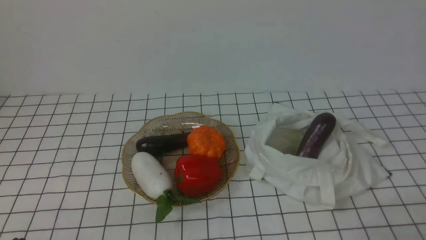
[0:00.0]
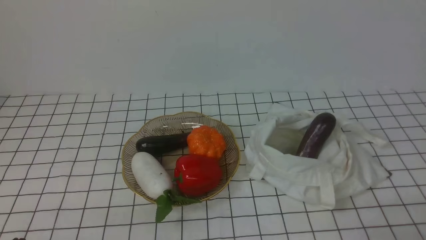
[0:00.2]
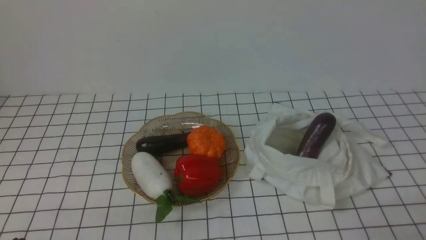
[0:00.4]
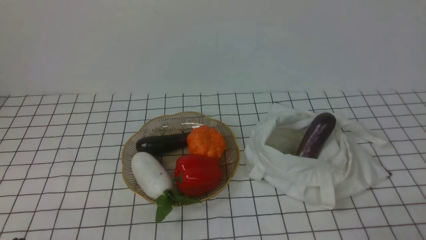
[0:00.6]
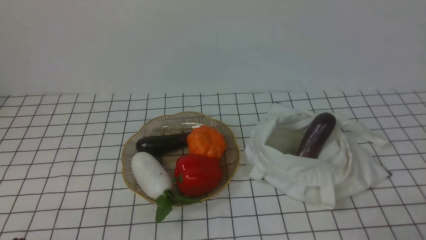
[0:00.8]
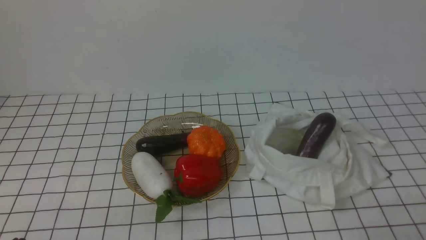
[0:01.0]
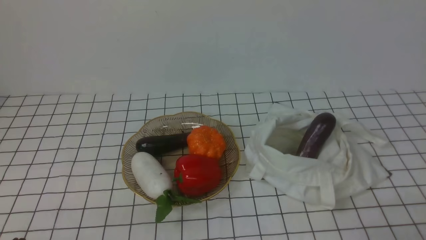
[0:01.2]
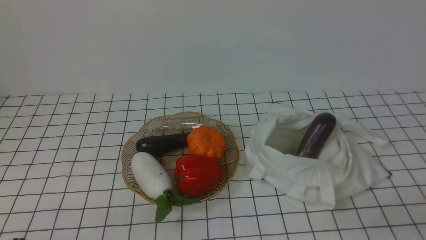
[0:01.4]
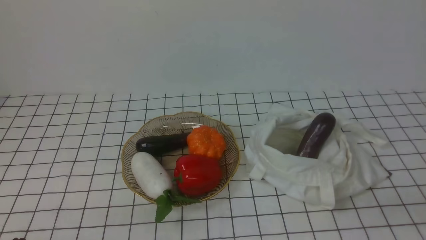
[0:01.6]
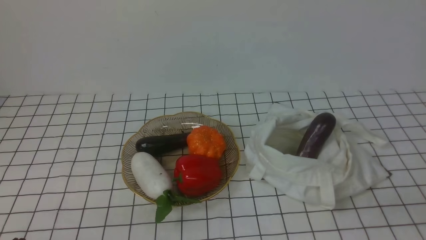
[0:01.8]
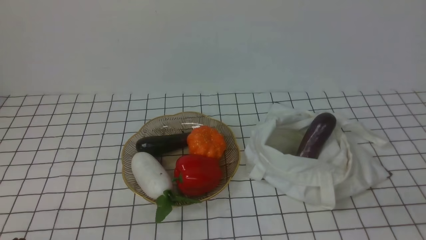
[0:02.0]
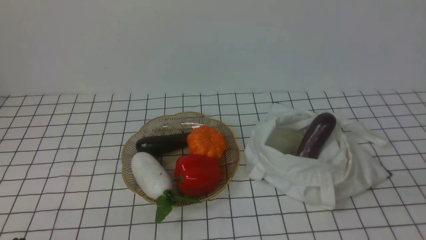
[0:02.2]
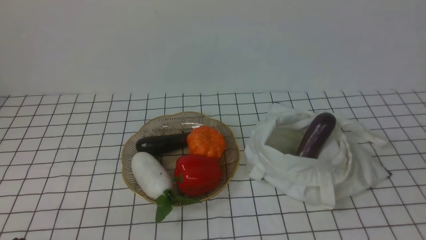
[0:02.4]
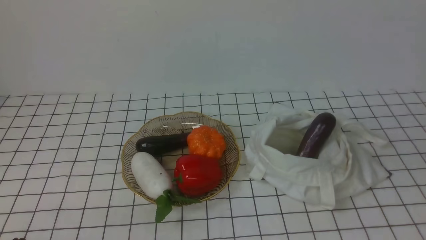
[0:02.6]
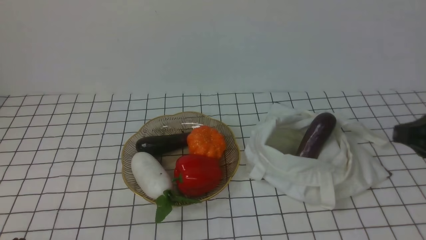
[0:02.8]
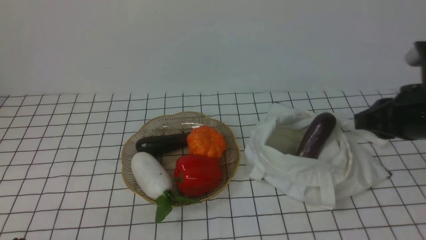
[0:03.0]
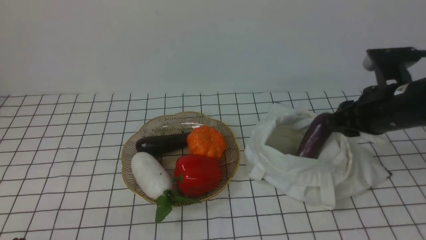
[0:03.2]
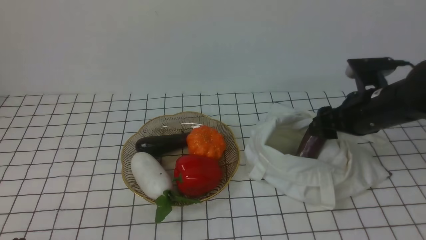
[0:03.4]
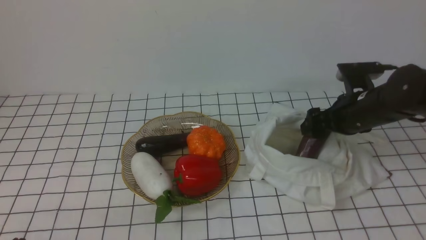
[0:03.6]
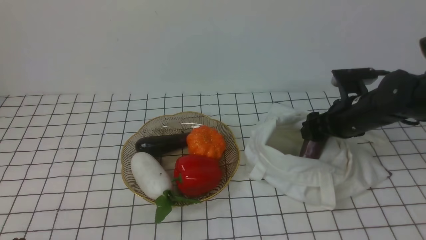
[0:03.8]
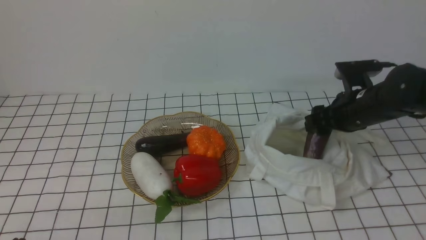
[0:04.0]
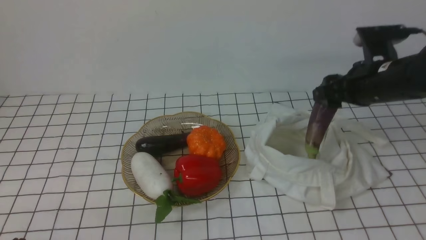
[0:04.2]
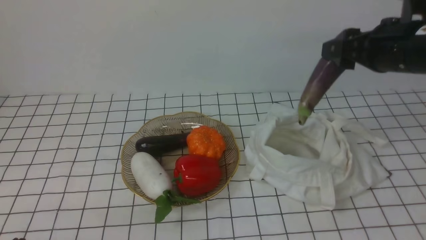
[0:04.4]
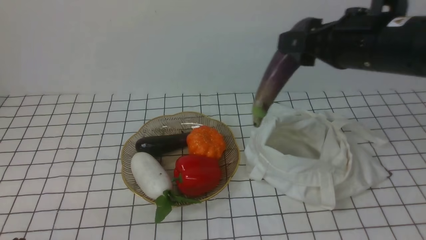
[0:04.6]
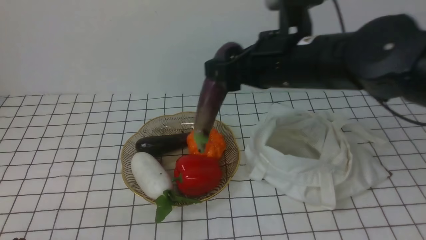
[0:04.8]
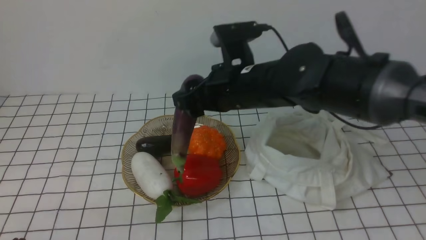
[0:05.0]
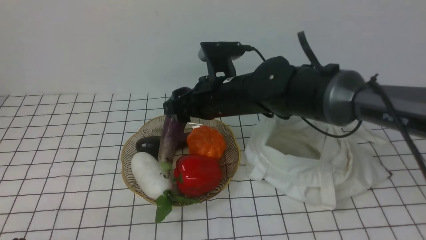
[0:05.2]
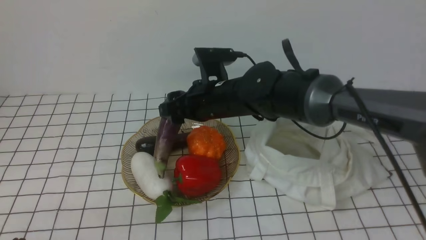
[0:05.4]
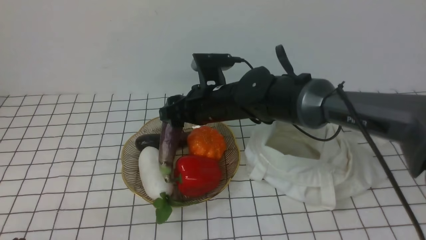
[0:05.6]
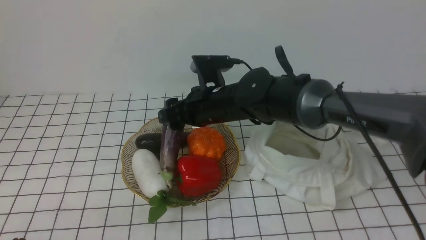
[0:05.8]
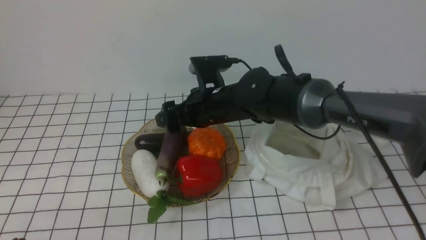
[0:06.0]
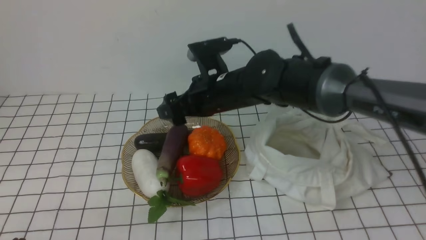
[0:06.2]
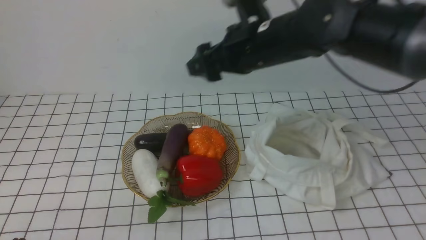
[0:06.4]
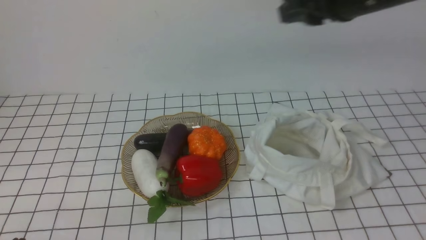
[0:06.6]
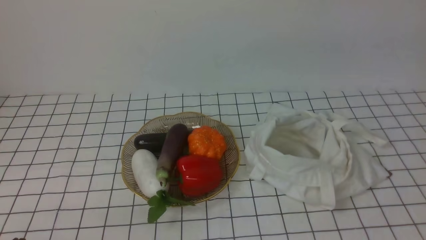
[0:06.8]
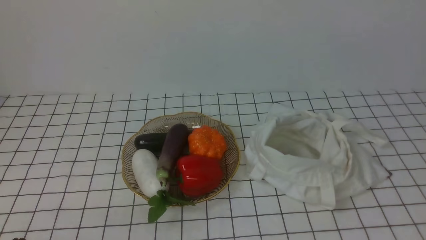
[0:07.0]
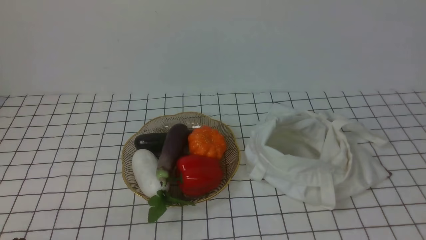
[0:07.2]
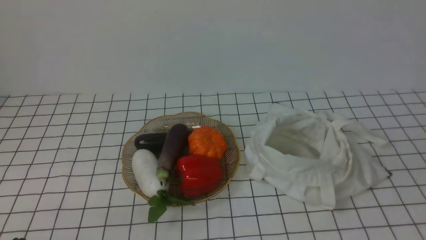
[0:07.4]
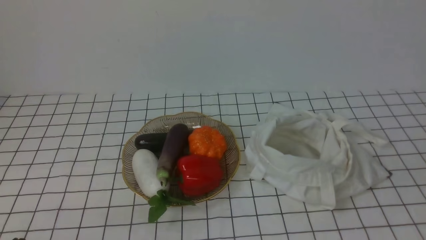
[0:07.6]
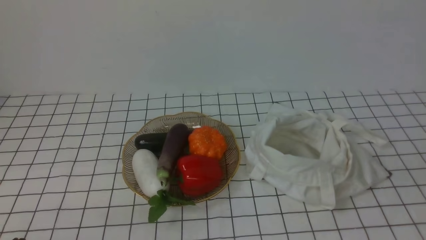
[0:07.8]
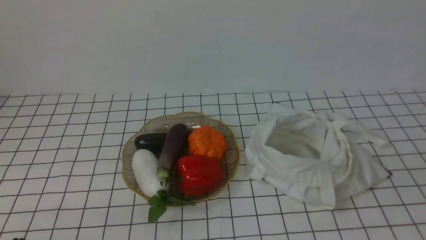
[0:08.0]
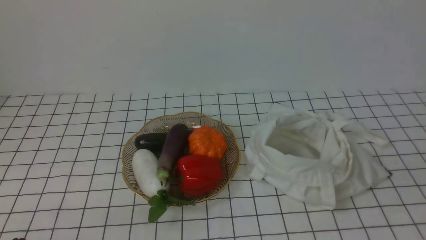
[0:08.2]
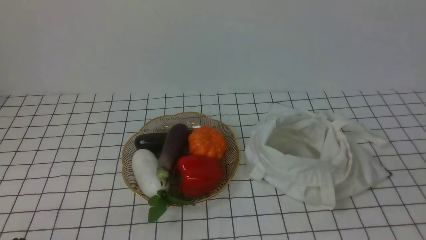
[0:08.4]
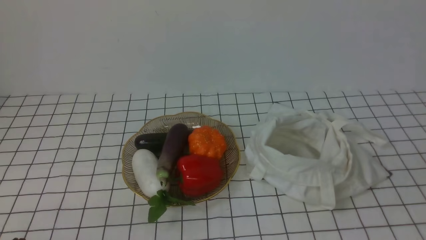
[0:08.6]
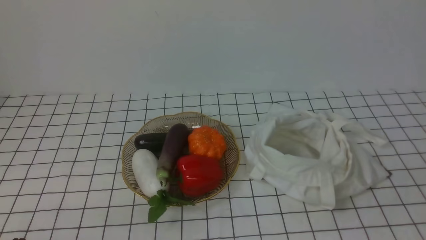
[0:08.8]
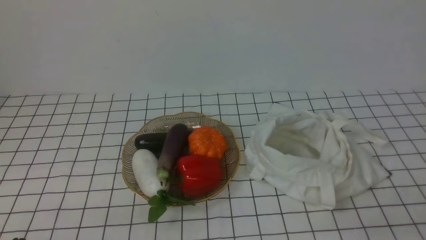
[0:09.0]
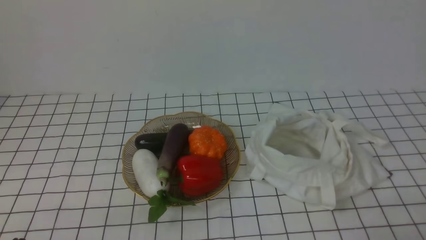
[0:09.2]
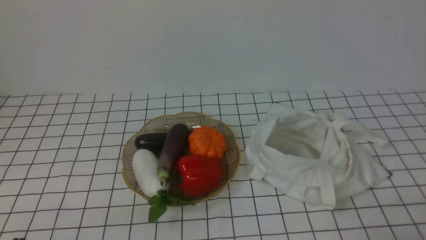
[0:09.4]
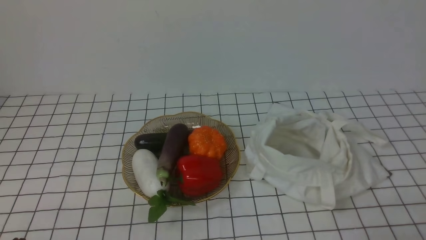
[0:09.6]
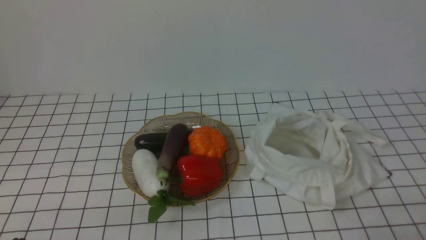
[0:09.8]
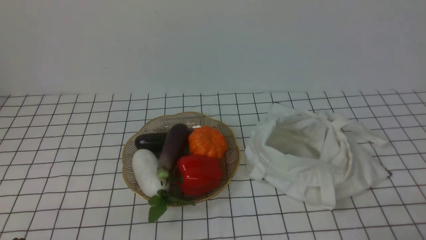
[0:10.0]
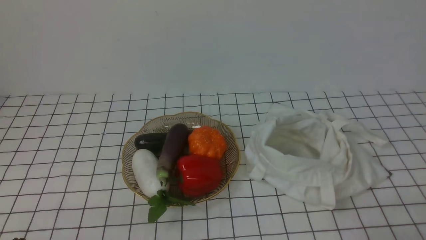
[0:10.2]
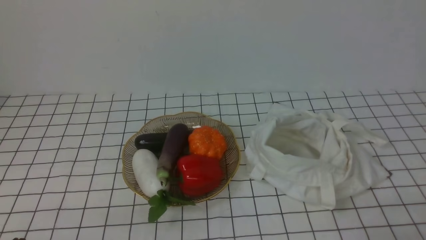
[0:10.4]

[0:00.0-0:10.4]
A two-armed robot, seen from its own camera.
Task of the whole recording: take vegetables from bag on white checkered tablecloth place on plate.
Step, 0:00.0 to 0:03.8: Grasp the eggplant with right gripper.
Step, 0:04.0 to 0:06.0: Place the eggplant on the plate with right gripper.
0:01.4 to 0:03.0: The right gripper shifts approximately 25 cm forward and upward.
0:03.0 to 0:04.4: The right gripper travels forward by roughly 5 cm, travels downward and back again, about 10 cm each way, and opens its fingers.
0:04.4 to 0:06.0: The right gripper heads to the left and downward, covering approximately 25 cm.
0:06.0 to 0:07.4: The right gripper moves backward and to the right, some 50 cm, and closes.

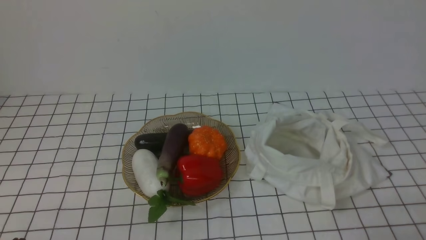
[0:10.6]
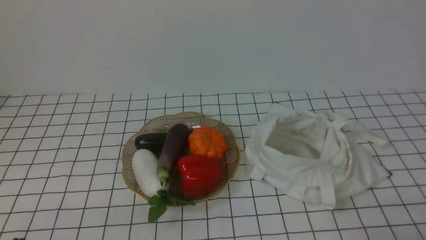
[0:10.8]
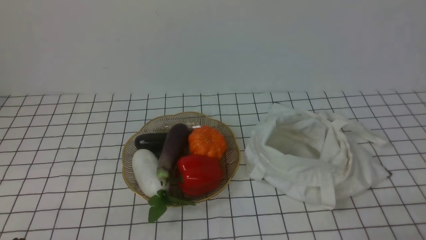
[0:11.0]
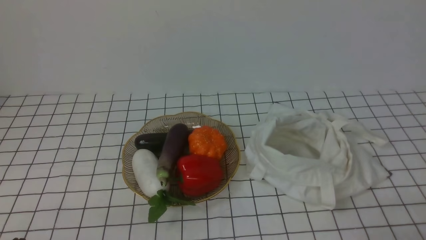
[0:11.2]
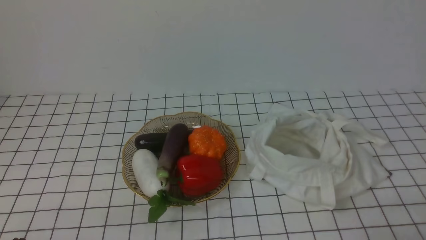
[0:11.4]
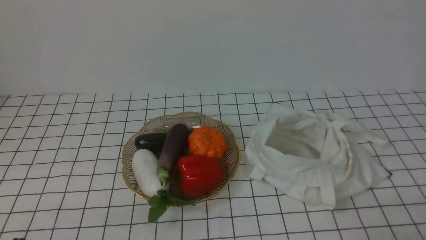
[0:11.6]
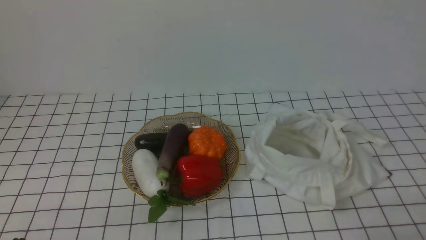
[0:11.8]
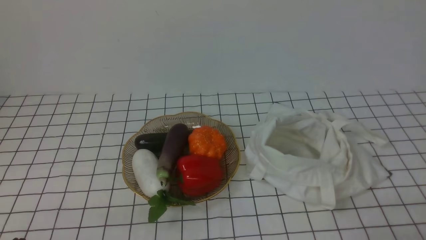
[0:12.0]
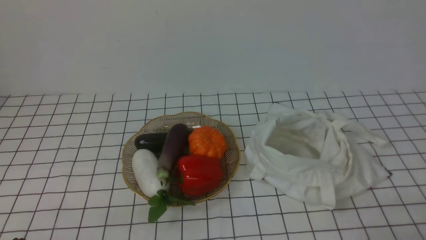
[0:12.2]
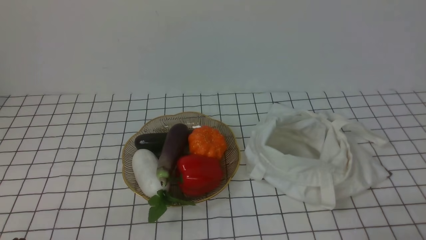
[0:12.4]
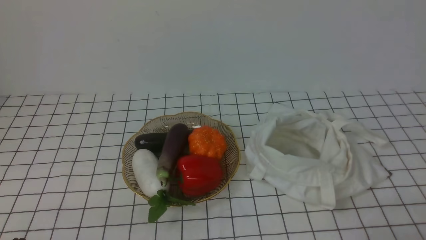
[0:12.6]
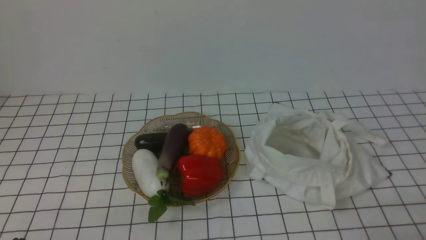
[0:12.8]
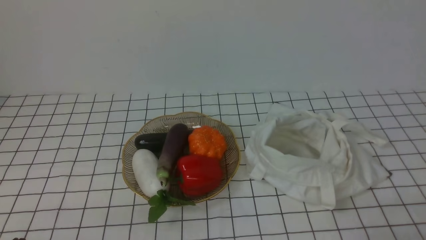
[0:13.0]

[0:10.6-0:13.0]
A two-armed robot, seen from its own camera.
Task of the whole recording: take vegetables from bag on white checkered tablecloth place on plate.
0:10.6 to 0:13.0: Neither gripper changes place.

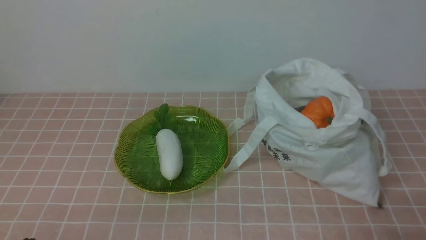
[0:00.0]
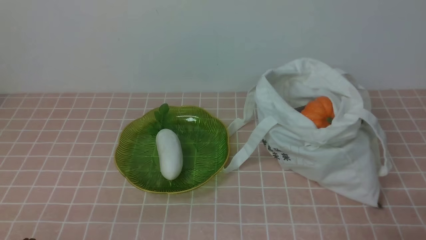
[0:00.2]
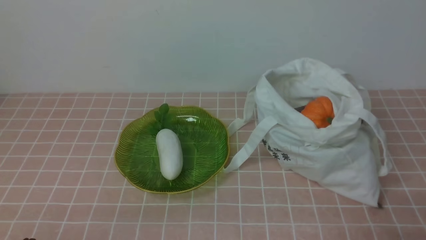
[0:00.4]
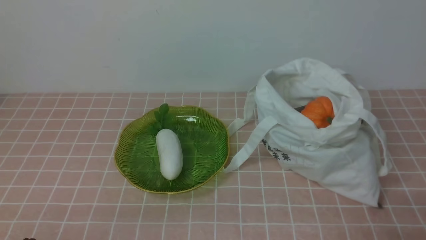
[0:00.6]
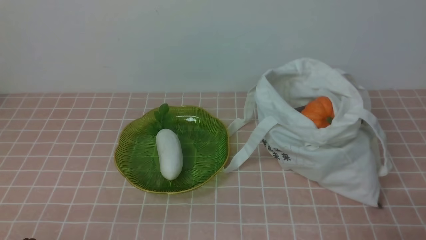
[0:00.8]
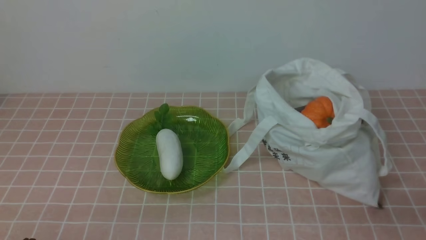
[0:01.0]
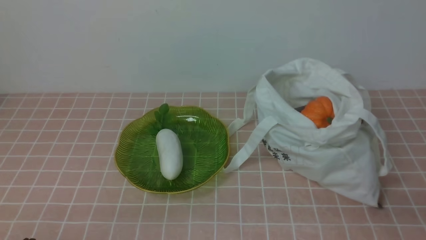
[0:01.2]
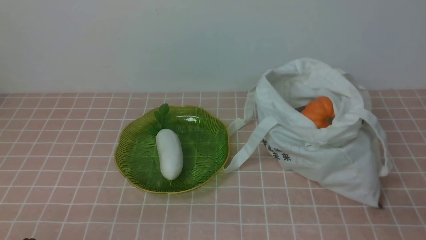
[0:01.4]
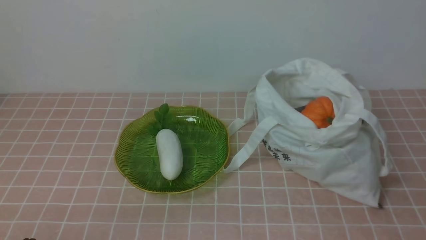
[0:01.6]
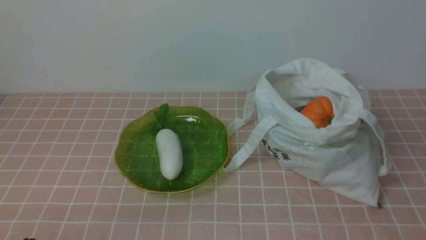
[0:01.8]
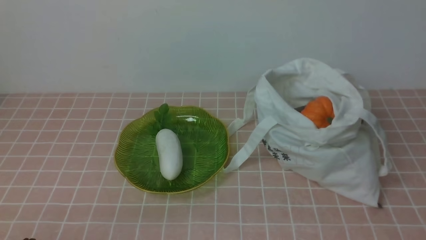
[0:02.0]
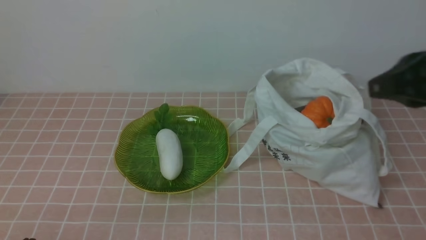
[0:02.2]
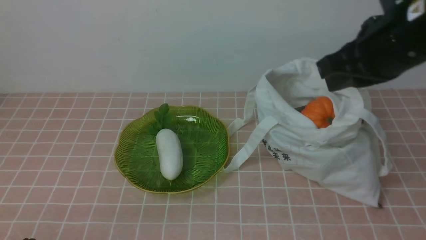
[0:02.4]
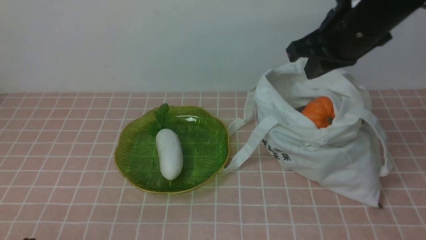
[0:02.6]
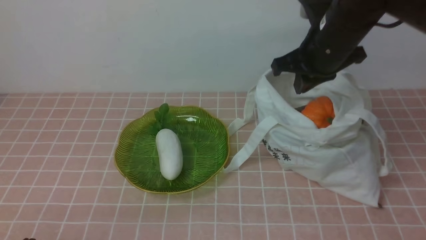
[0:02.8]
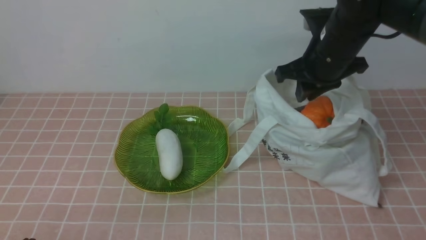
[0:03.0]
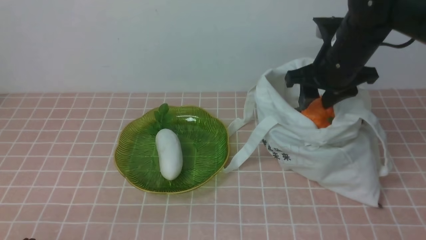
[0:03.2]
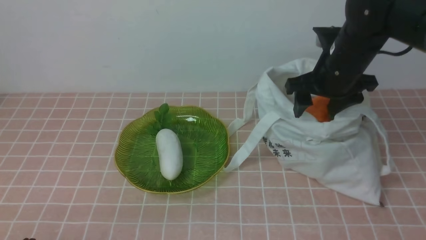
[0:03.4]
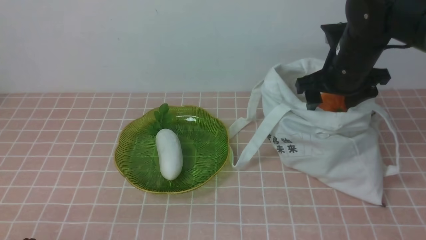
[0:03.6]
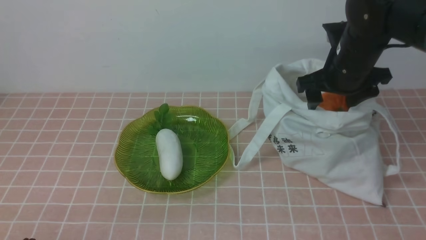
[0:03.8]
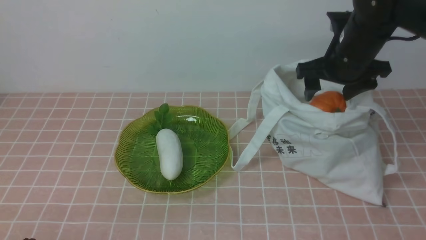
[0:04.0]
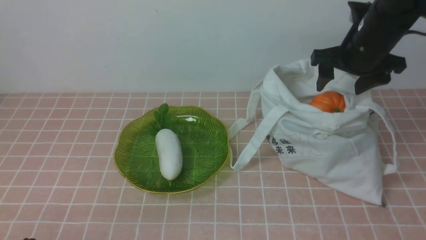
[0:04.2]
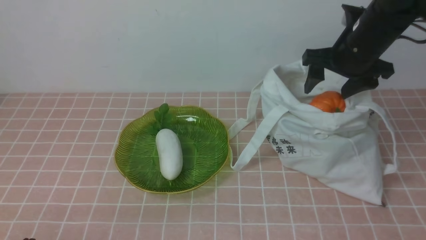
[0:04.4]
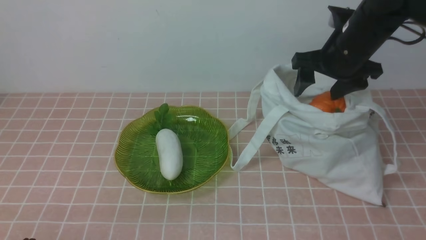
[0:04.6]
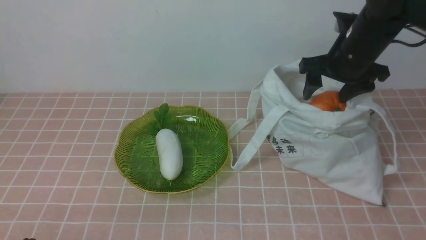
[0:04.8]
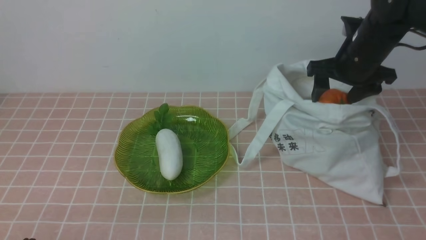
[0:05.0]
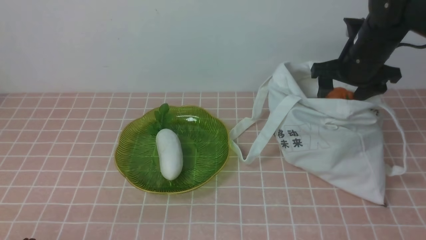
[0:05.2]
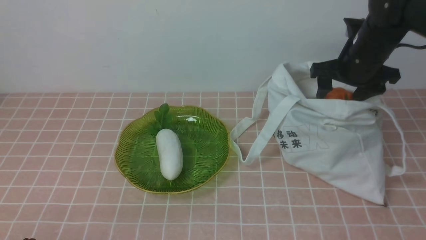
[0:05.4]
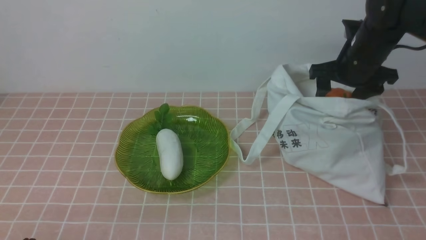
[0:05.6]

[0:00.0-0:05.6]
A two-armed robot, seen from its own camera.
Task of the whole recording: take vegetables from bag on pink coffee tablecloth place on plate.
0:01.4 to 0:02.8: The right gripper goes roughly 35 cm forward and to the left.
0:02.8 to 0:04.2: The right gripper heads to the right, covering some 5 cm, and opens.
0:04.2 to 0:05.6: The grippers move only a little.
